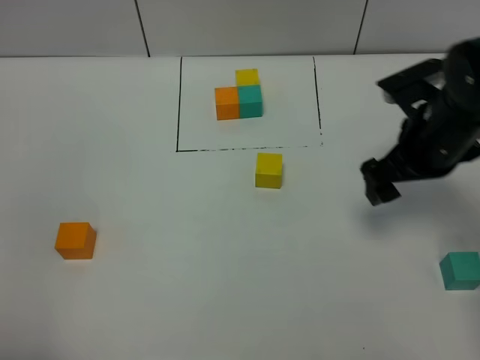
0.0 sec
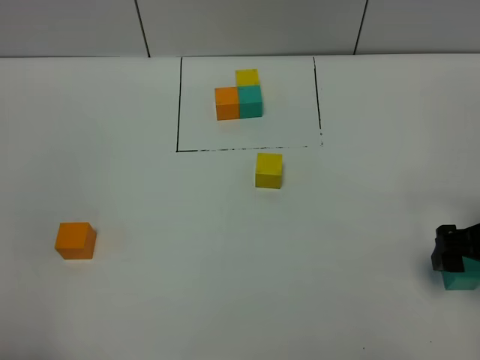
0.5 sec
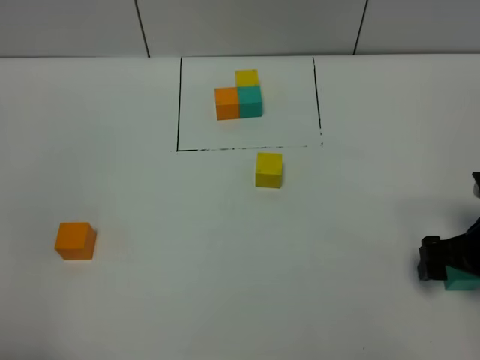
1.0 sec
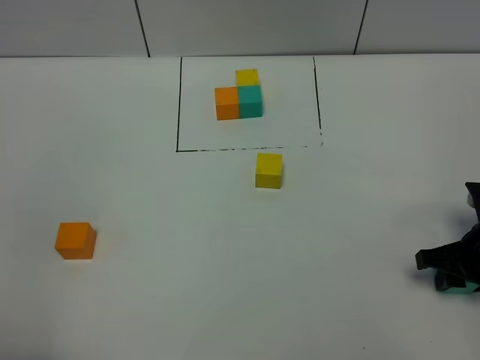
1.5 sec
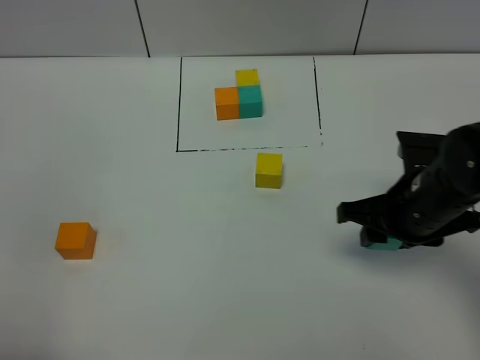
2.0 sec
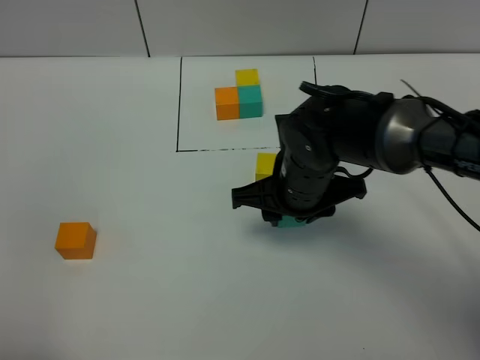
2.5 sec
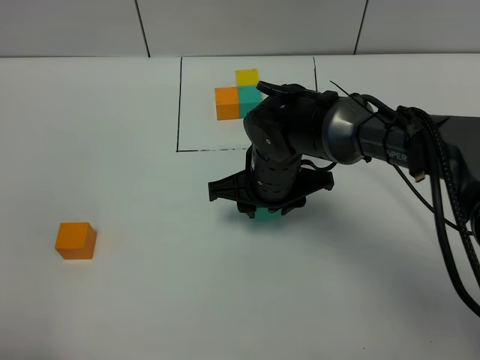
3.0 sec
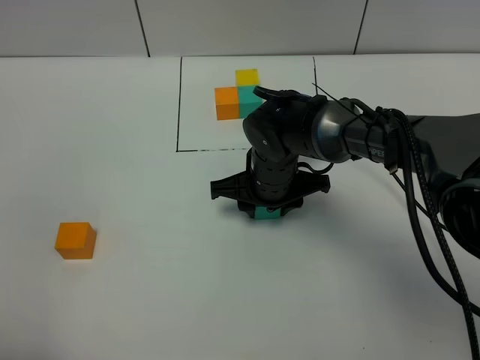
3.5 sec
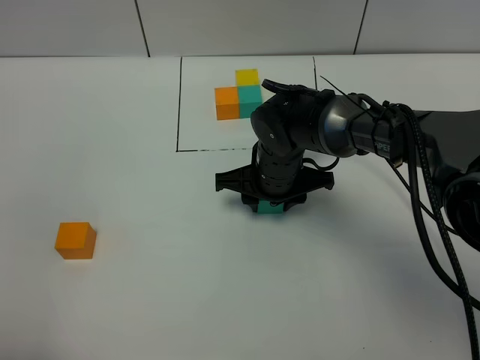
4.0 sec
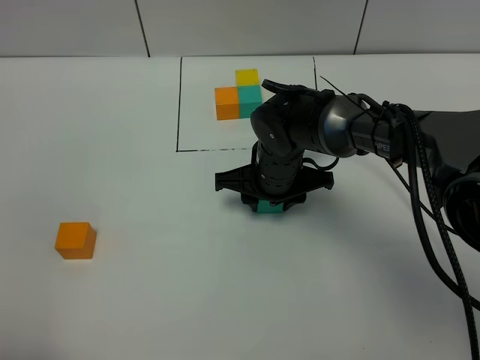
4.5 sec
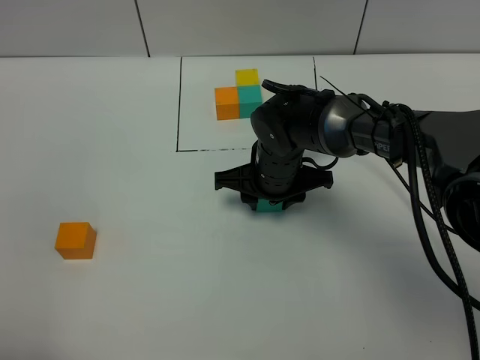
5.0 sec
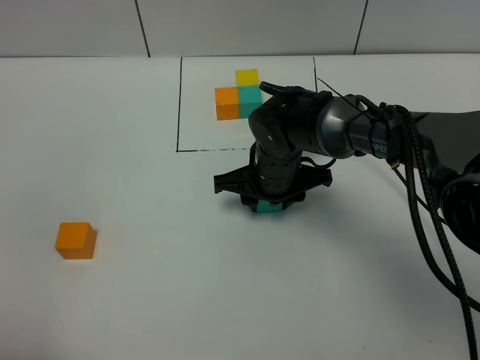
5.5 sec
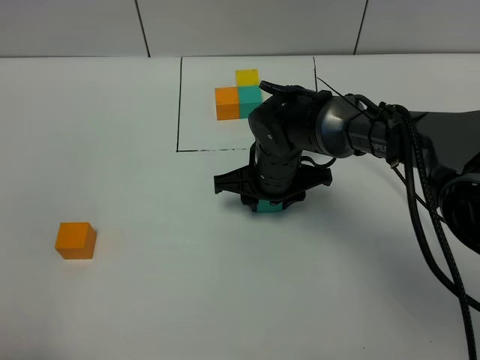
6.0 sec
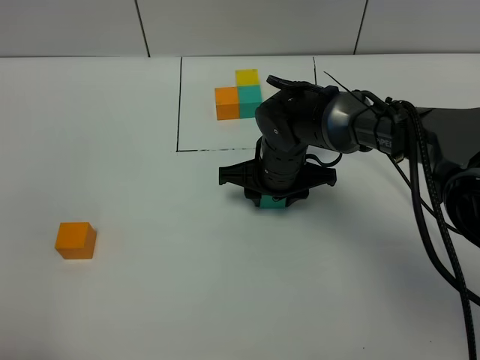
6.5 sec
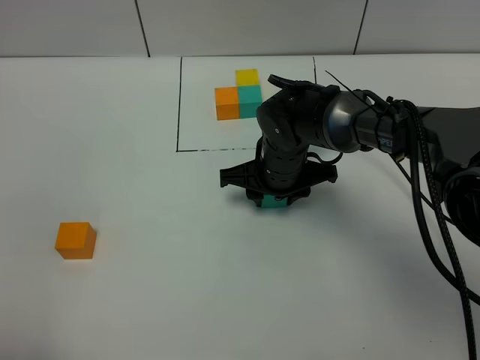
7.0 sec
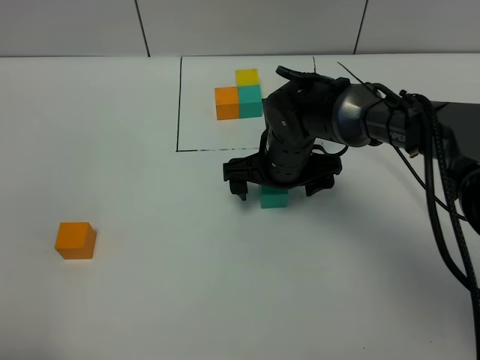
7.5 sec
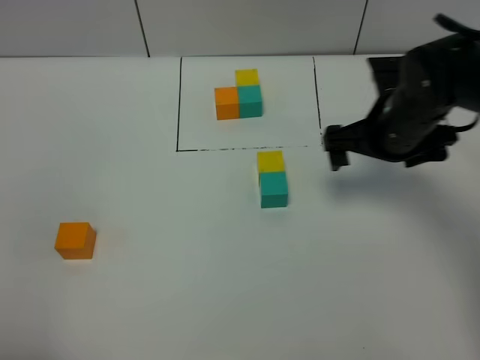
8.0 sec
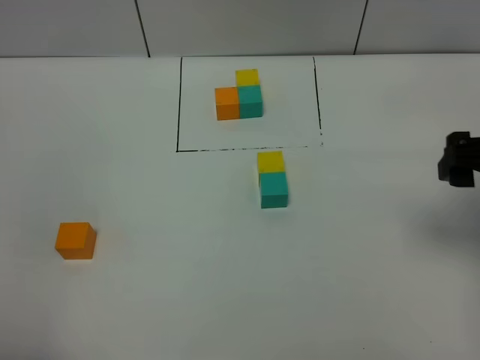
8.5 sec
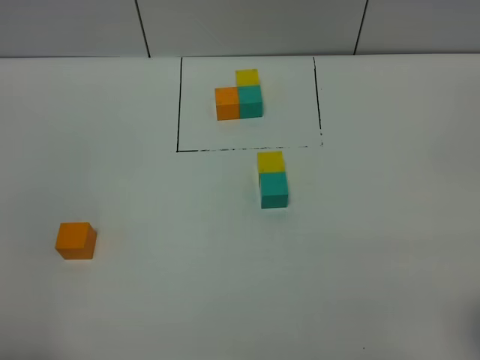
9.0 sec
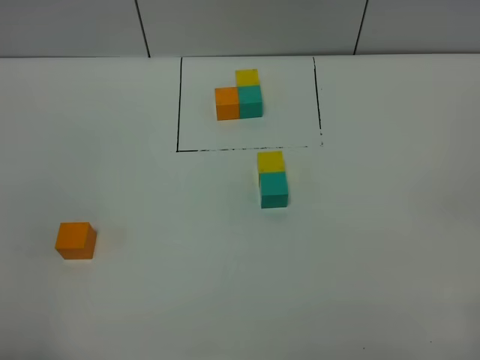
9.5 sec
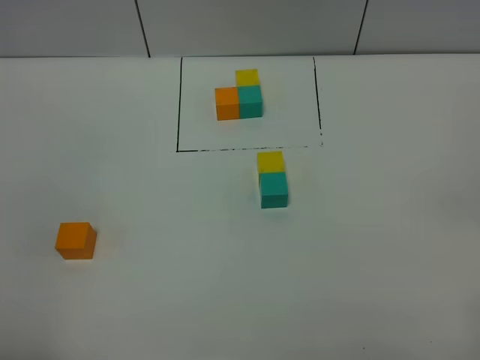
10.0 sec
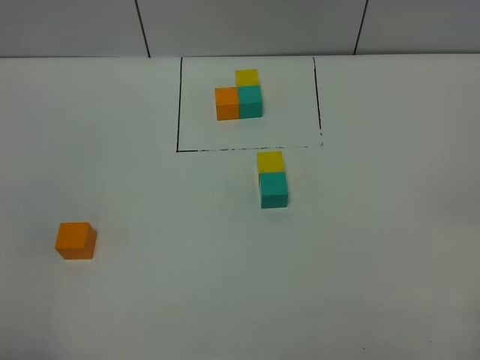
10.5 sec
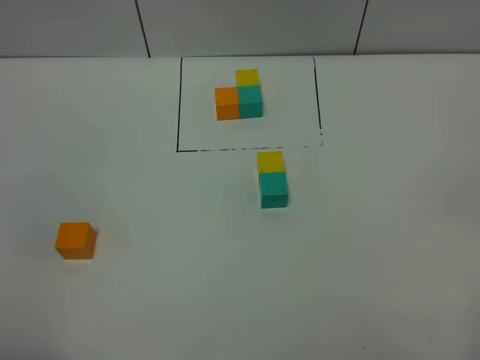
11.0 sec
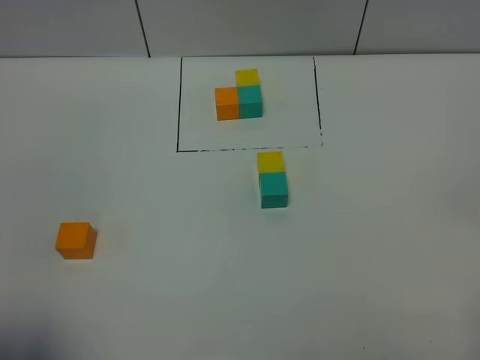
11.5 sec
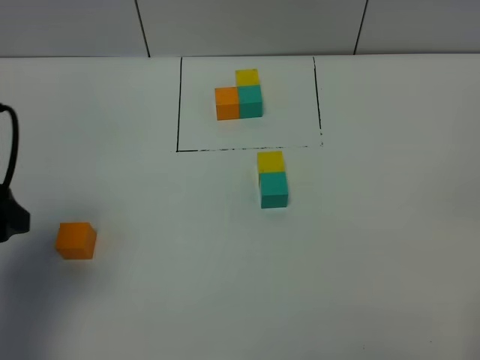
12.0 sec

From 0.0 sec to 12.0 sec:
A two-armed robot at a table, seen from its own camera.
Task of the whole recording: According to the building block template in front, assemble the scattered blocks together.
Step, from 0.0 sec to 7.0 sec: Put the green build block on the behind of the yellow build block.
From 0.0 sec to 2.0 sec: The right gripper is displaced backward by about 5 cm, and closes its fingers.
From 2.0 sec to 4.0 sec: The right gripper is displaced to the left, forward and downward by approximately 20 cm.
From 4.0 sec to 6.0 sec: The two grippers keep their place.
From 6.0 sec to 8.0 sec: The right gripper goes approximately 20 cm to the right and upward, and opens up.
From 8.0 sec to 10.0 sec: The right gripper travels backward by approximately 35 cm.
From 10.0 sec to 12.0 sec: The left gripper goes about 20 cm forward, and opens.

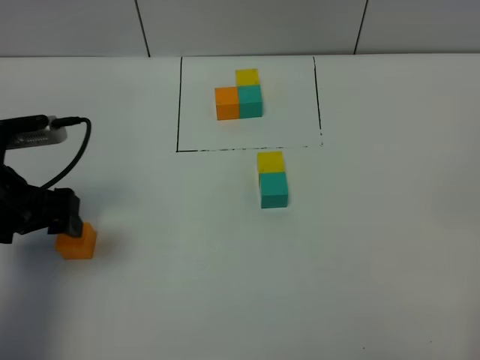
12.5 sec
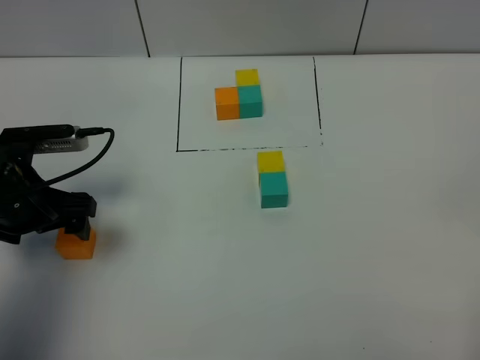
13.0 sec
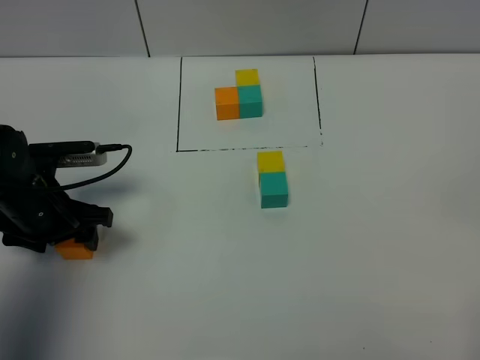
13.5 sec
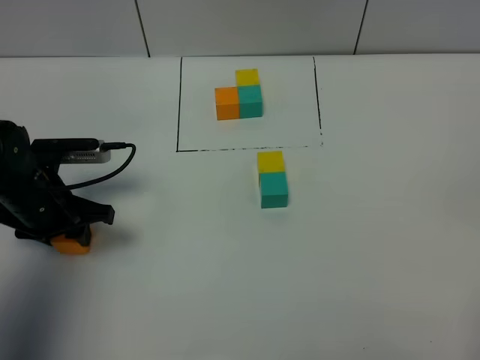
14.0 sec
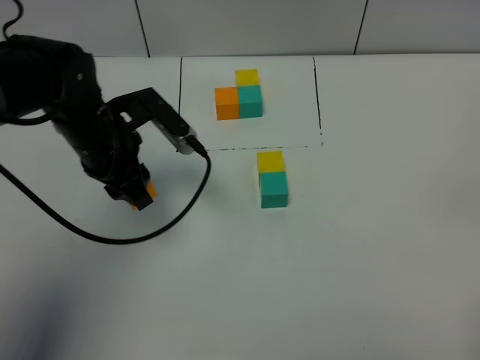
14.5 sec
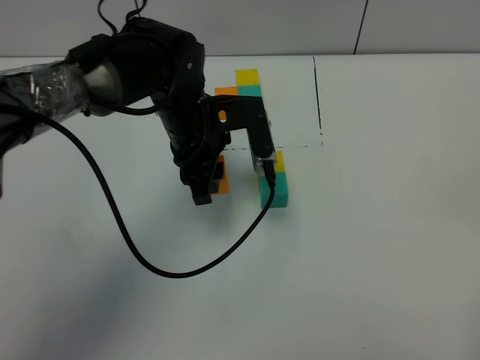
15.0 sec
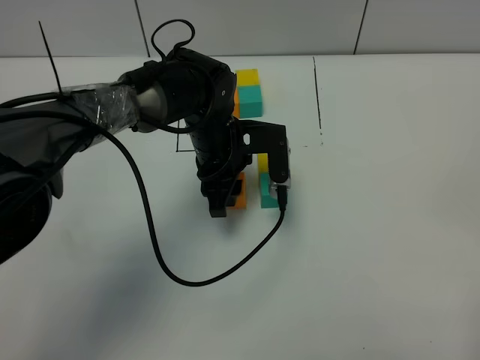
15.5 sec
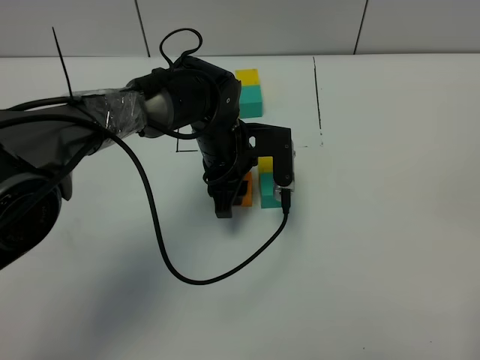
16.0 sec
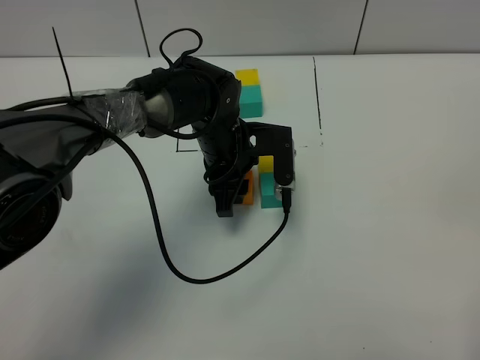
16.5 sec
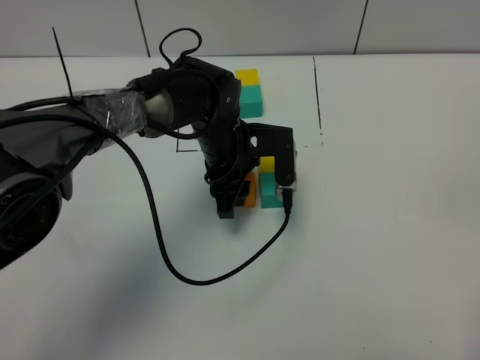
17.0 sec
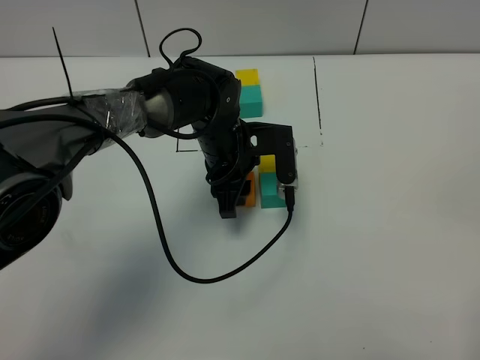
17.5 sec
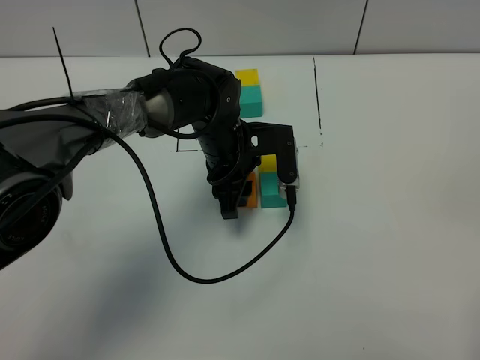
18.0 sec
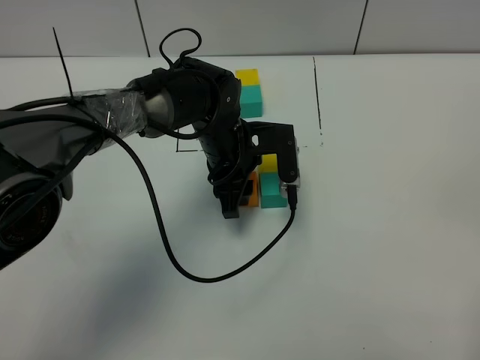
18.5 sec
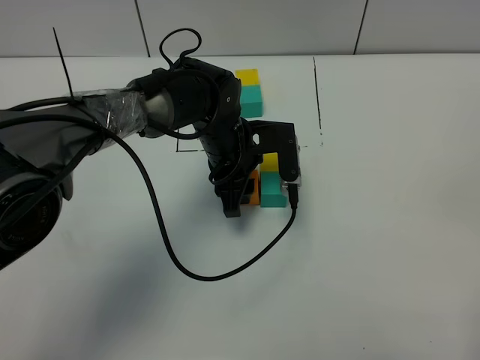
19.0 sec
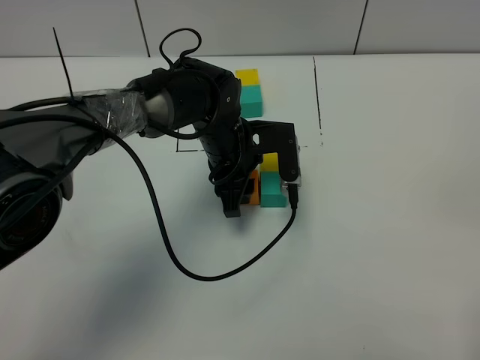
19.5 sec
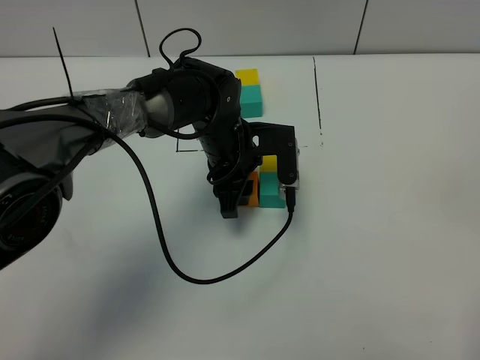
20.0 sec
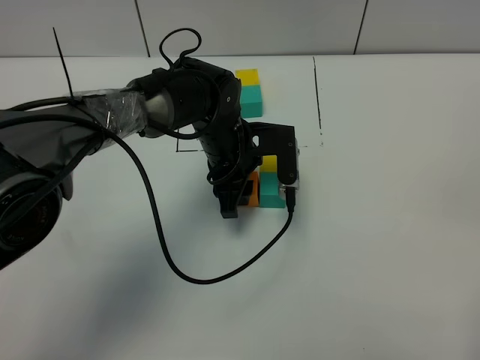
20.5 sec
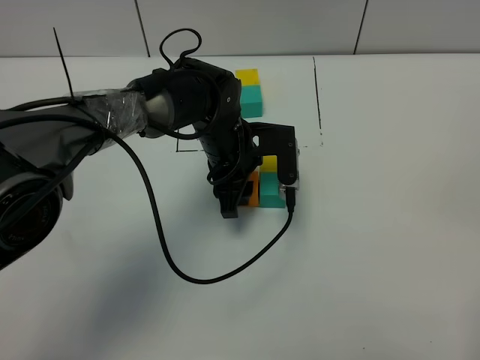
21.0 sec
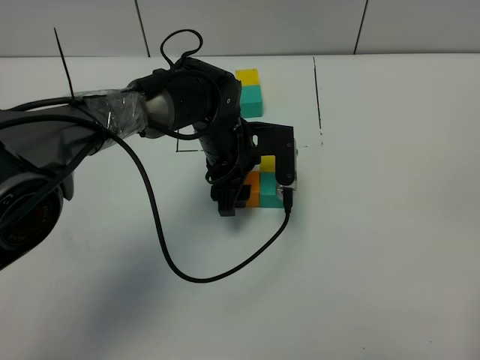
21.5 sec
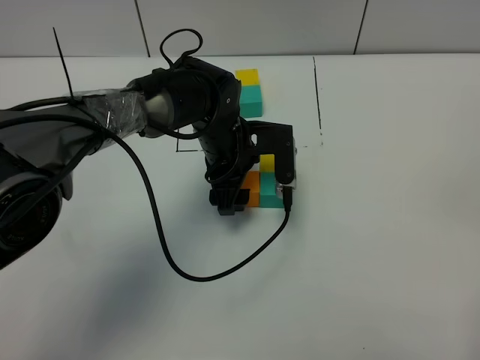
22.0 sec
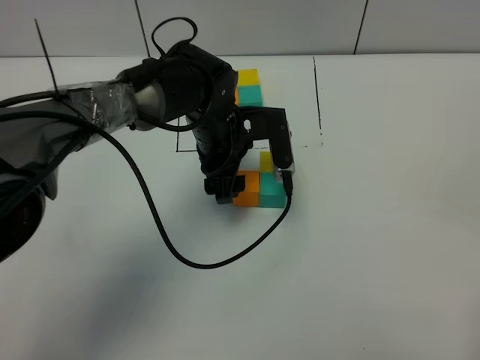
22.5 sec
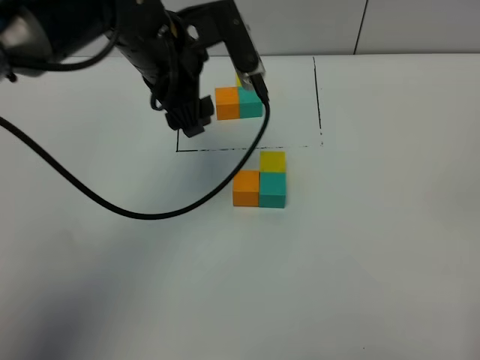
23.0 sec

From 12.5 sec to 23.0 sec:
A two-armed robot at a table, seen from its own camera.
Task of the whole recording: According to the building block template in front, assemble the scattered blocks together.
Step, from 12.5 sec to 21.0 sec: Put the orange build block on the left of the green build block.
From 12.5 sec to 14.5 sec: The left gripper moves to the right and forward, some 15 cm, and closes.
From 14.5 sec to 16.5 sec: The left gripper heads to the right and downward, covering about 15 cm.
From 16.5 sec to 21.0 sec: The two grippers keep their place.
From 21.0 sec to 23.0 sec: The left gripper travels upward and to the left by some 20 cm, and opens its fingers.

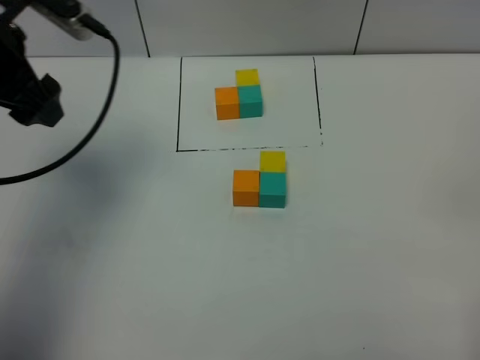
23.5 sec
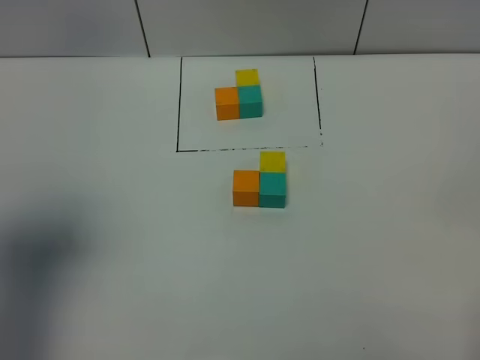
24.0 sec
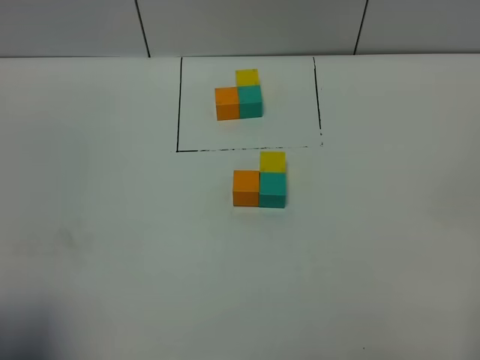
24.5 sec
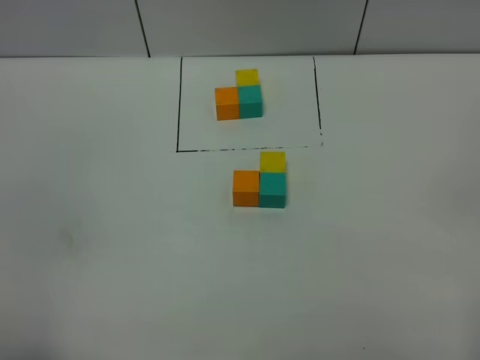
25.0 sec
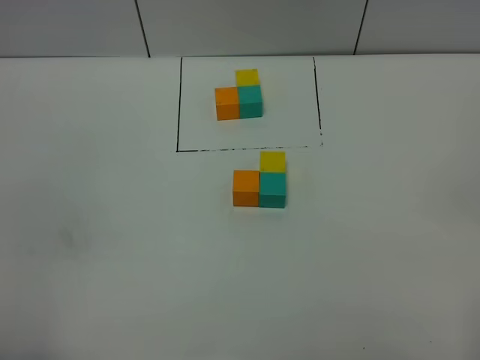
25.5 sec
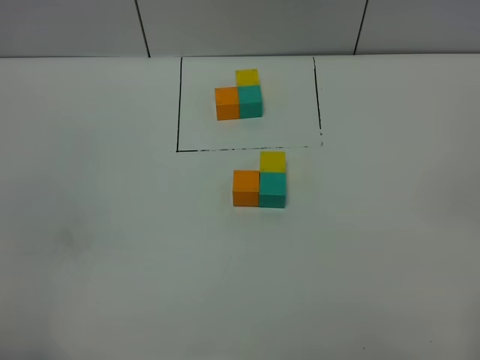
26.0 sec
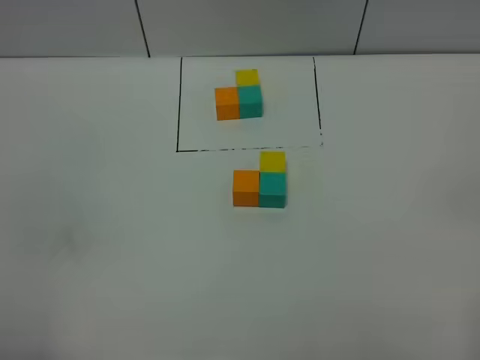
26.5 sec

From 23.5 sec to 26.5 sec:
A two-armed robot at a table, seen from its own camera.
Task of the whole recording: According to the building block template in front, assemble the scattered blocks together.
From 23.5 sec to 25.0 sec: The left gripper travels backward by about 35 cm.
From 25.0 sec to 26.5 sec: Both grippers stay put.
